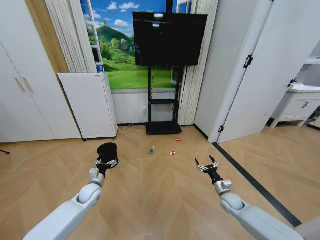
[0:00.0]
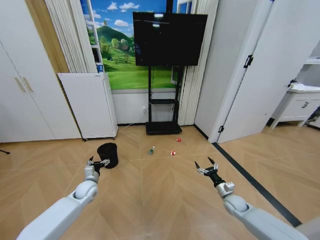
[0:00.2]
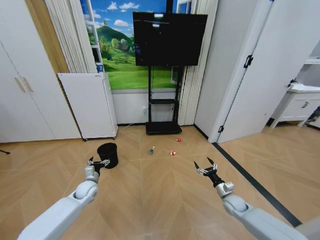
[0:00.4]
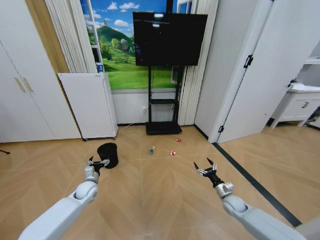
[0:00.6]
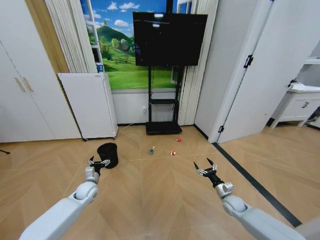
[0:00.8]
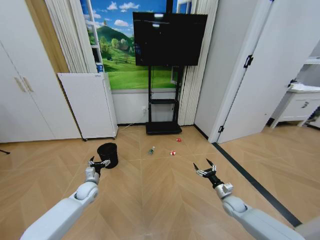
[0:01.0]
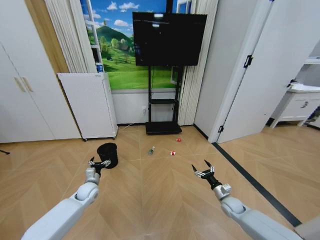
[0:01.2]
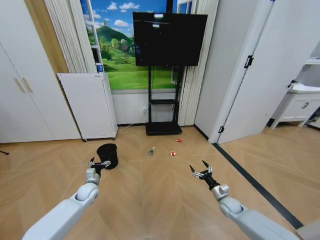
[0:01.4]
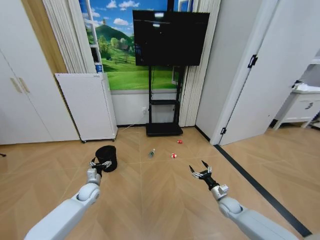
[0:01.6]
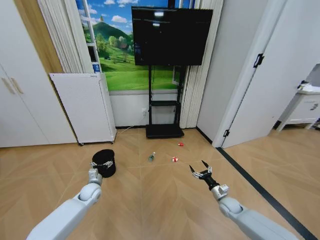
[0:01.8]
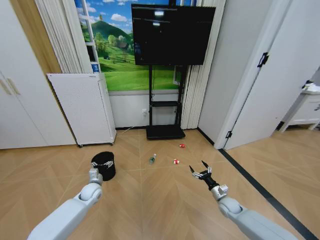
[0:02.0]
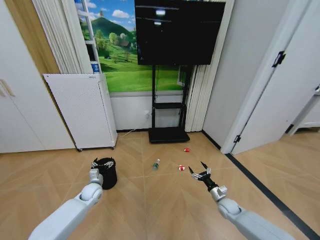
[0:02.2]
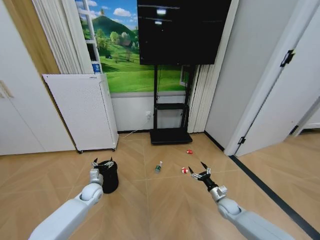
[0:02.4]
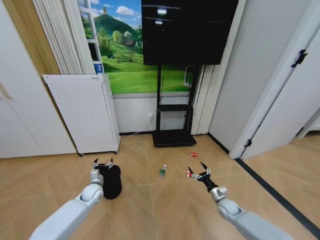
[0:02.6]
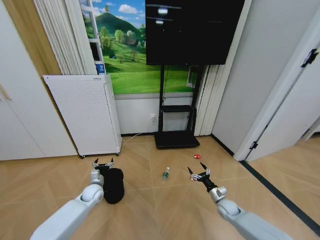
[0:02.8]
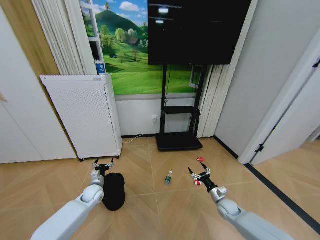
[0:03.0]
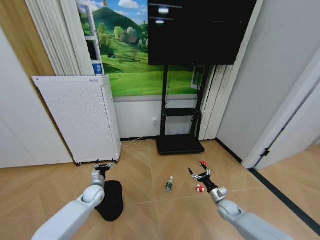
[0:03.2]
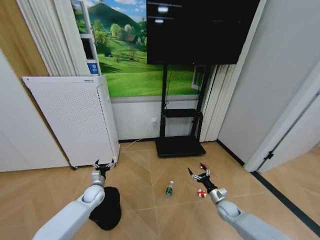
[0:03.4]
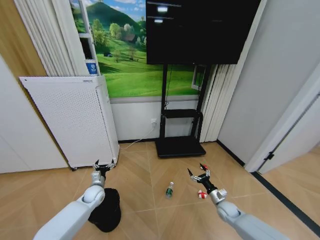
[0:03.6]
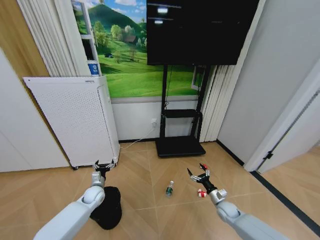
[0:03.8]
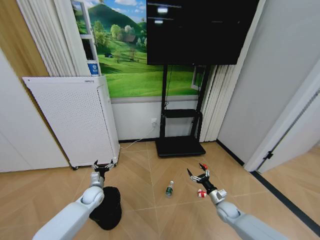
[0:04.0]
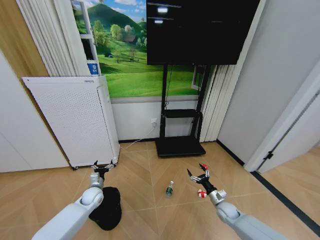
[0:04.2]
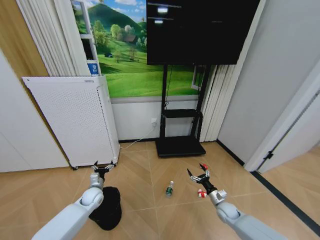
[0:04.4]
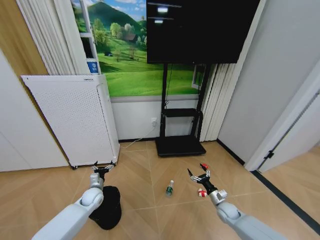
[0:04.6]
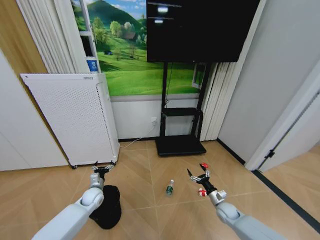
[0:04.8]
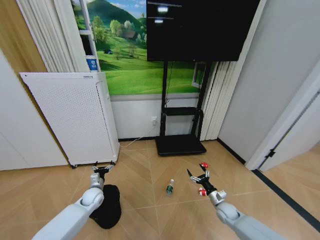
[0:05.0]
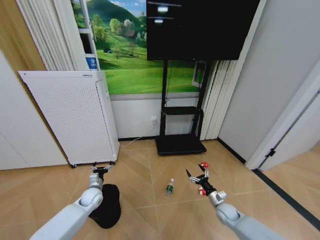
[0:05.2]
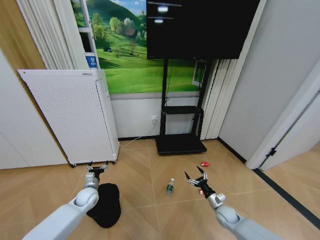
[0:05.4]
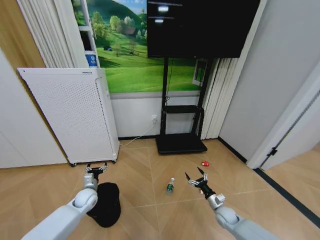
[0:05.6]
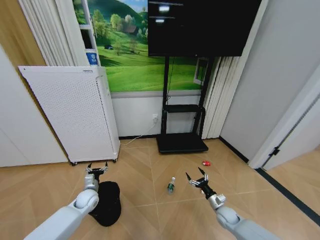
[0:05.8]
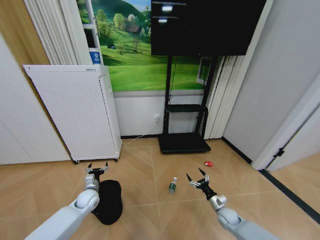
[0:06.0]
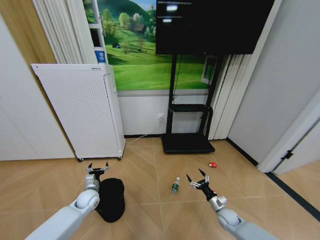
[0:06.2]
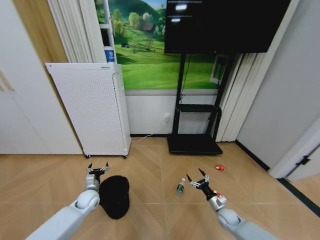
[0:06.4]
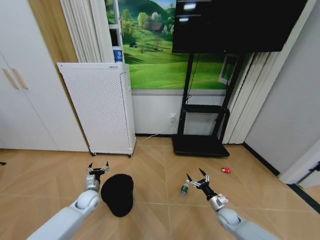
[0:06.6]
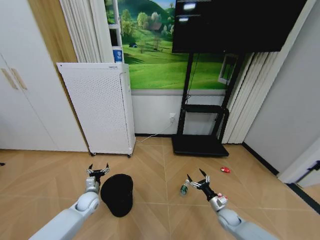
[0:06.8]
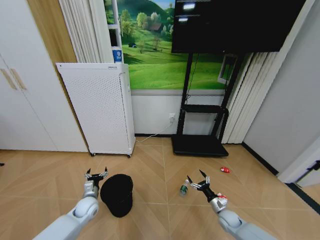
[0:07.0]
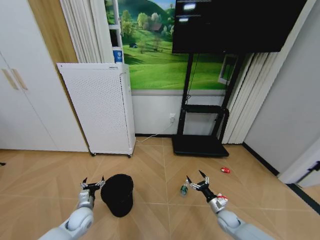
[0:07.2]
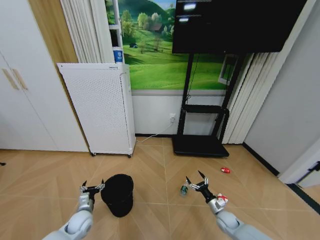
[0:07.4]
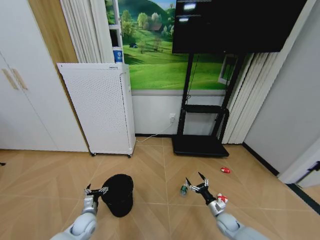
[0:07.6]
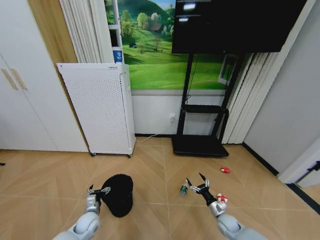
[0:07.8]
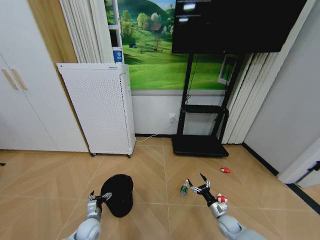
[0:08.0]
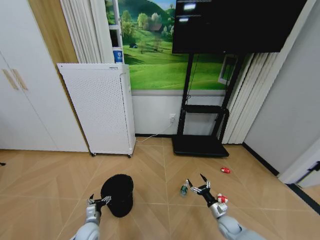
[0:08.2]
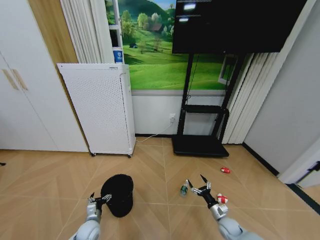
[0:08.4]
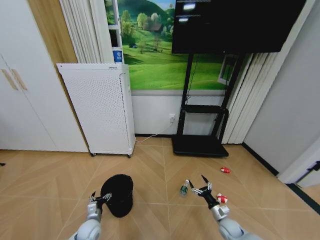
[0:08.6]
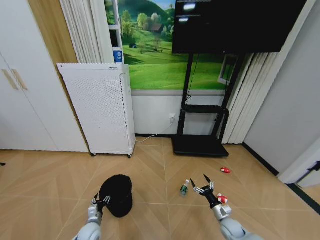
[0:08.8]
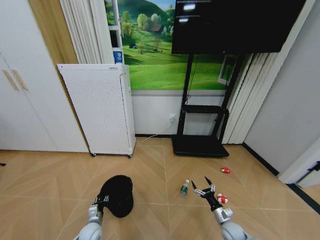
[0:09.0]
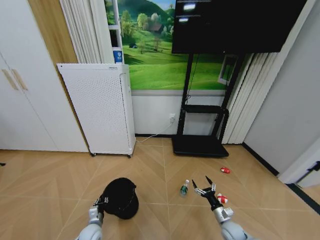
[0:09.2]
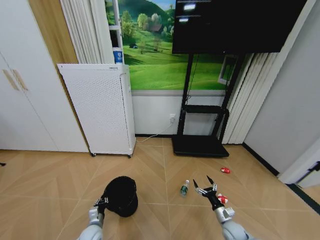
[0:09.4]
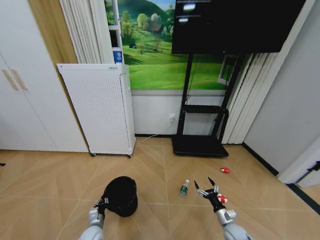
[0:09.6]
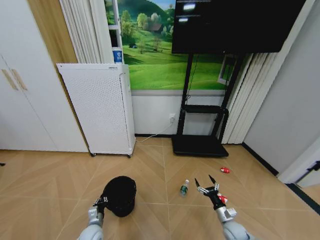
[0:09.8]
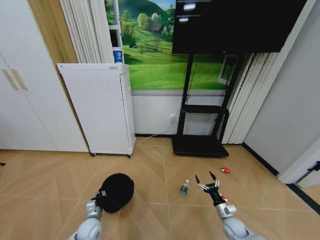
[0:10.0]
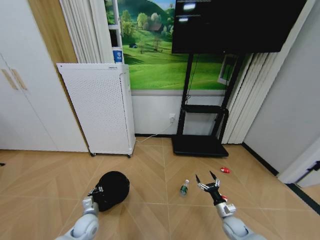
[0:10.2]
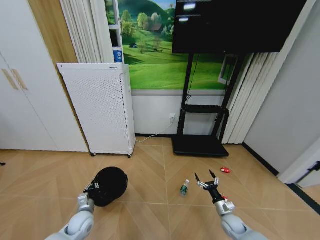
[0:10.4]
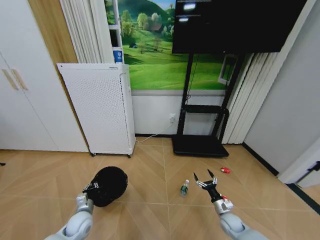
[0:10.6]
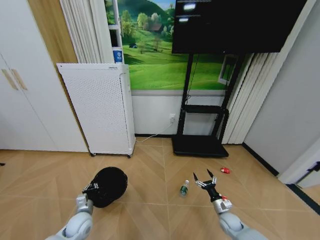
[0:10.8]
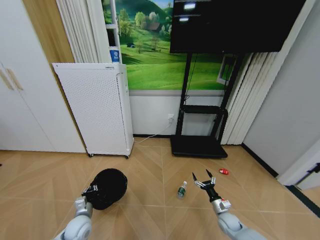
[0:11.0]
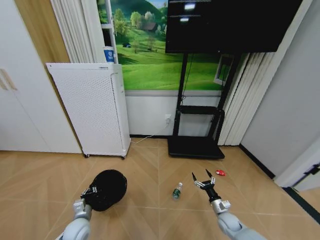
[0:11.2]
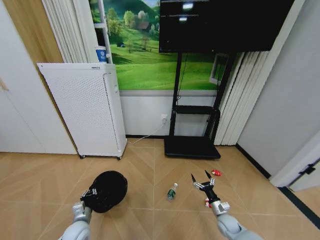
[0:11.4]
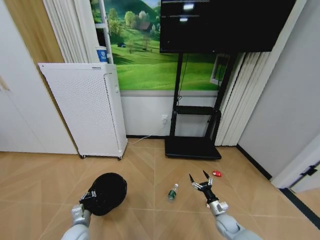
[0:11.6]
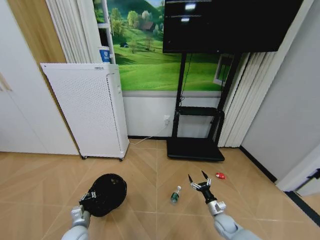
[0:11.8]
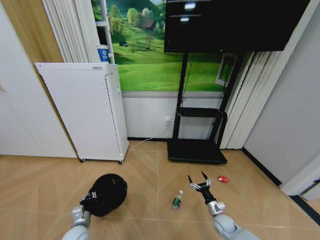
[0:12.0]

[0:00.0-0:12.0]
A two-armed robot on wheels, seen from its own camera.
Task of the whole recording: Pick up the trash bin and place the garbage on the floor into it.
0:06.0 to 0:07.6: The left gripper heads backward and downward, covering some 10 cm.
0:07.6 to 0:09.0: The left gripper changes place by roughly 5 cm, and closes.
0:09.0 to 0:10.4: The left gripper is displaced upward by some 10 cm, and closes.
0:10.4 to 0:12.0: The left gripper goes approximately 5 cm backward.

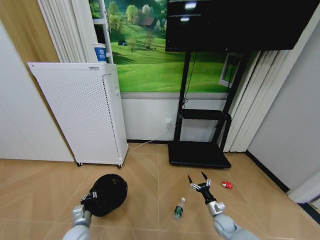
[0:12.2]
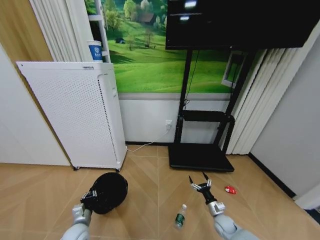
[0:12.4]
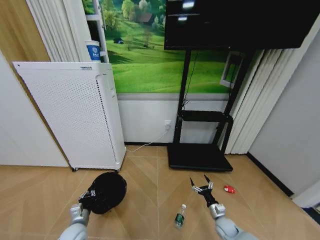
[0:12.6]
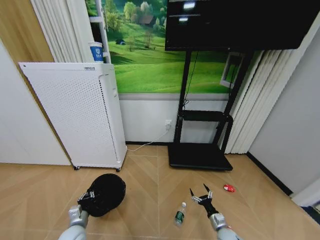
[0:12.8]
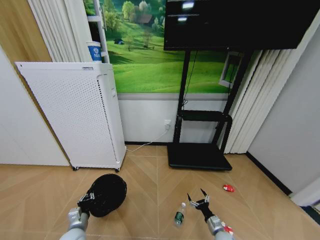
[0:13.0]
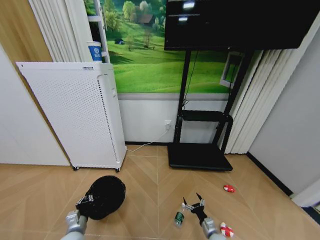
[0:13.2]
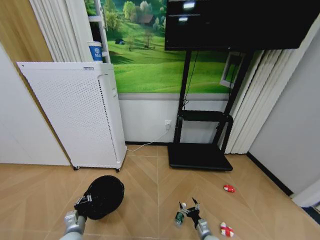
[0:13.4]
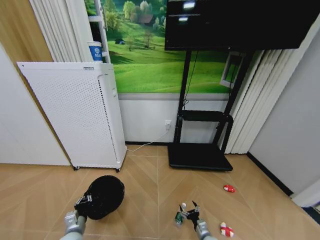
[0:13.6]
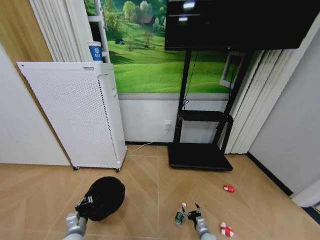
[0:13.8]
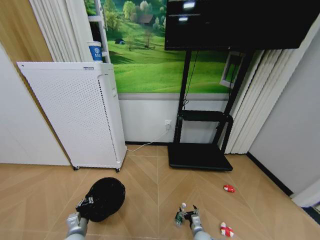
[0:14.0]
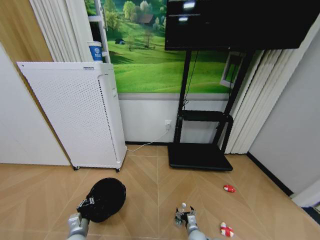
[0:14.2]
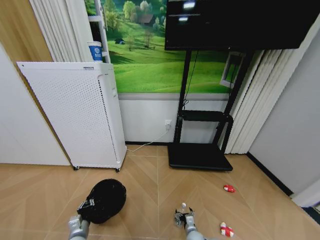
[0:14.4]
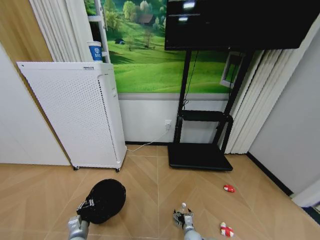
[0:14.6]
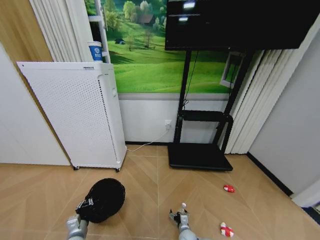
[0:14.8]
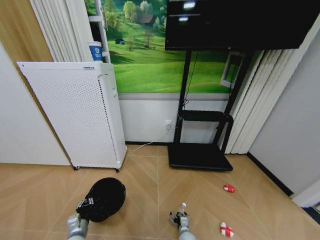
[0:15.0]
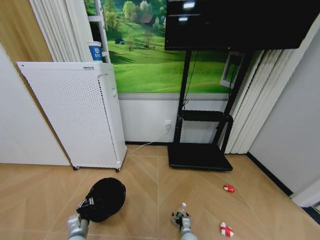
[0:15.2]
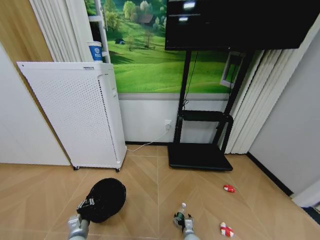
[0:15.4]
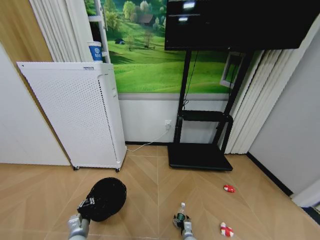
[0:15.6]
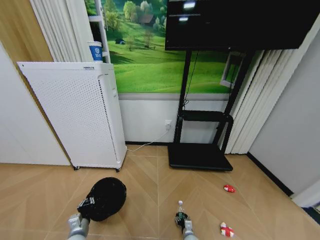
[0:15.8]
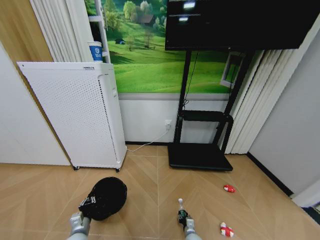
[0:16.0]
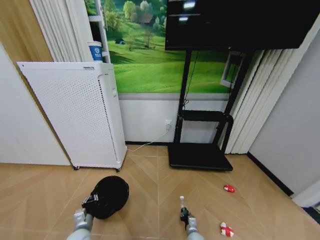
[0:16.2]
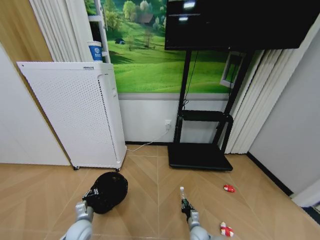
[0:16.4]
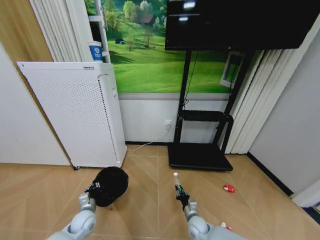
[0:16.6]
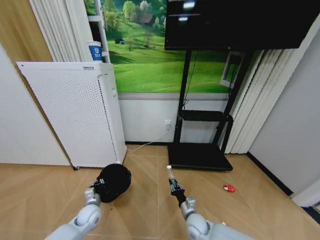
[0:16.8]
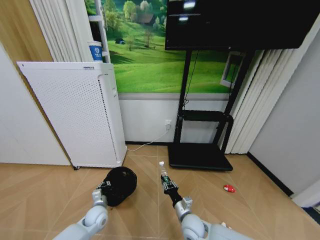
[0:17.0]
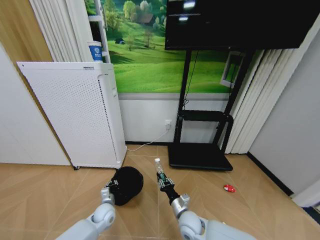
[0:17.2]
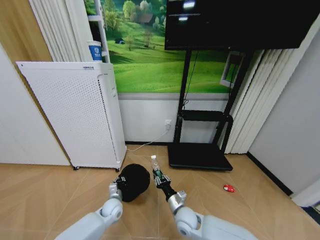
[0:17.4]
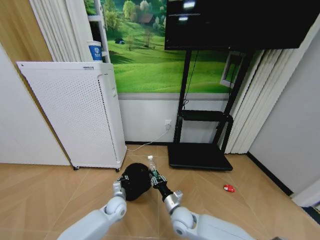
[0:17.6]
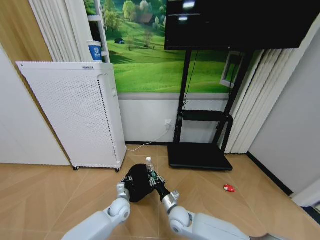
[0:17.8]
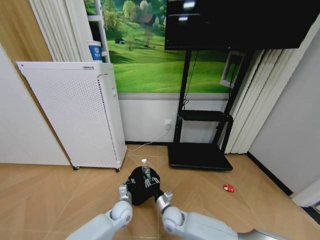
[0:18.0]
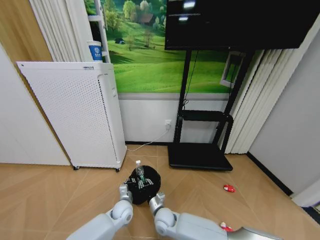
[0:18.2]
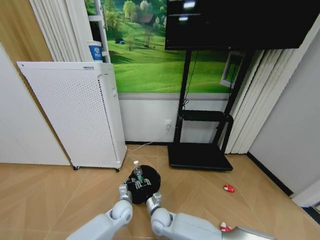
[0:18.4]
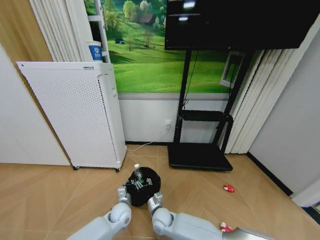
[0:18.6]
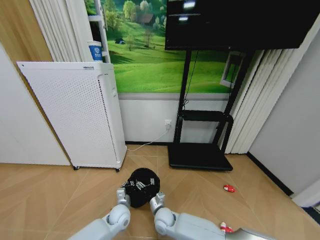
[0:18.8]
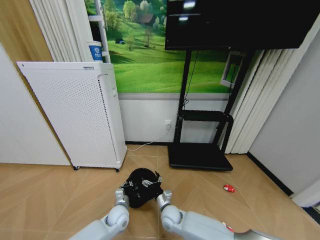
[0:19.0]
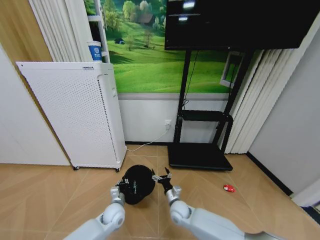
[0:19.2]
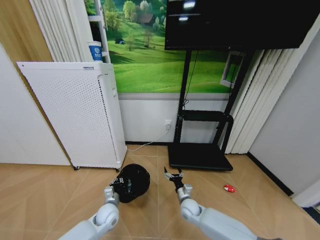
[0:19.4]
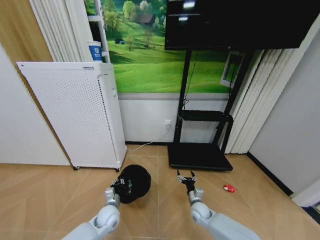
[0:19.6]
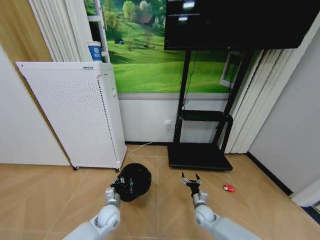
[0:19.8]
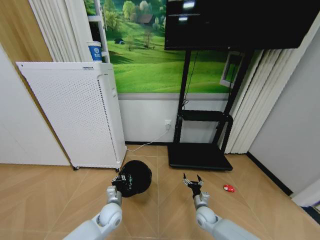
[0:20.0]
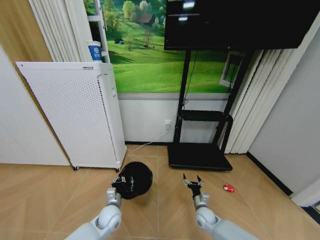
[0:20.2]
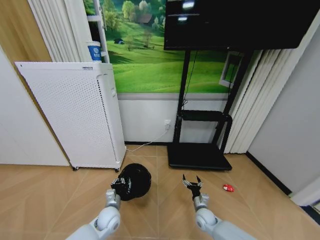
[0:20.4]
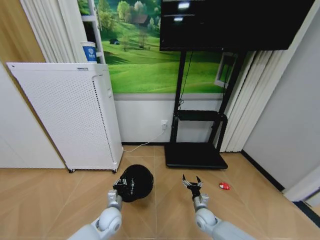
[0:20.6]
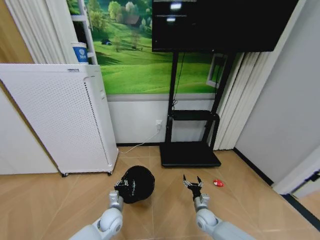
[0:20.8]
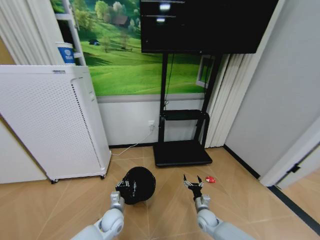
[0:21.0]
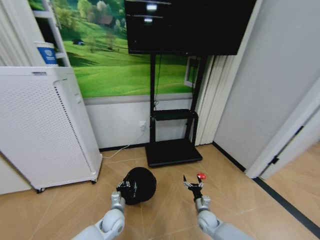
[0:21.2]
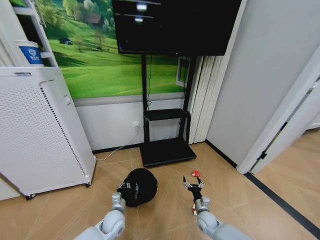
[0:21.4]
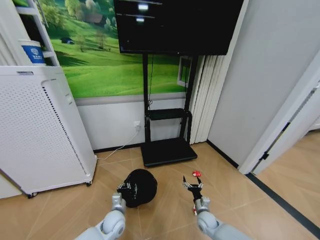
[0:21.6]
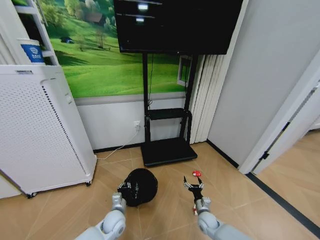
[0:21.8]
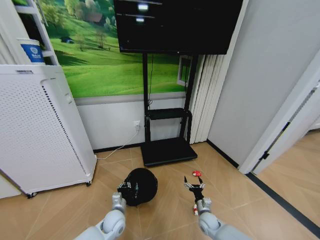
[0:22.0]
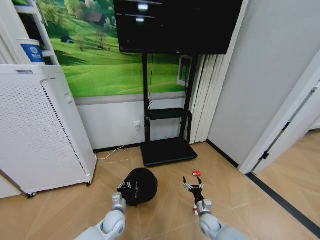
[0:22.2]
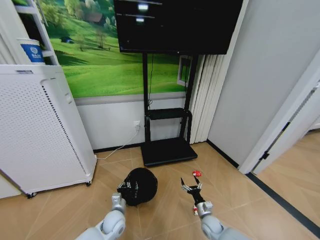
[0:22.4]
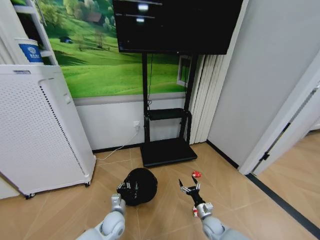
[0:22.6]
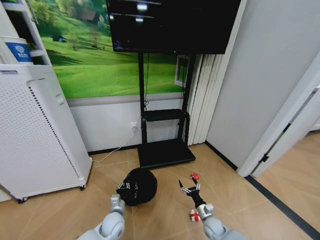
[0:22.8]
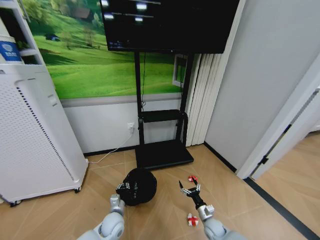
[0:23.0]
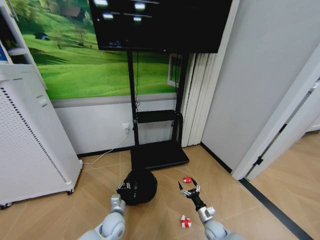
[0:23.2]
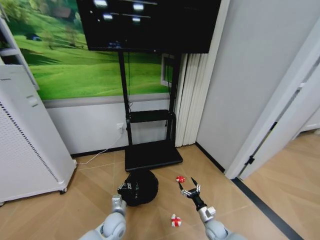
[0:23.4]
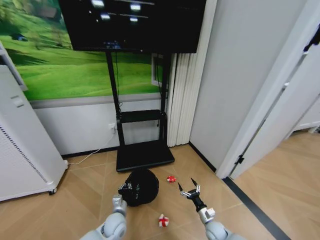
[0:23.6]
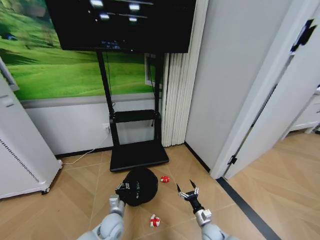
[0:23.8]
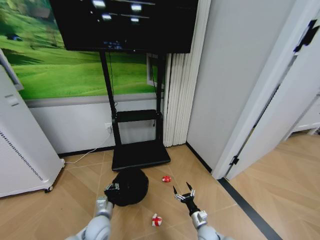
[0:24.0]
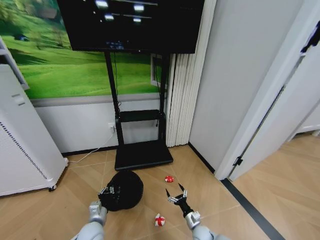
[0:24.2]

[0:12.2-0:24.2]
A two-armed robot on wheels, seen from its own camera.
Task of the whole recording: Pick up the trash bin and place the garbage on the floor into it.
0:12.2 to 0:13.8: The right gripper heads downward, to the left and backward, covering roughly 15 cm.
0:13.8 to 0:15.2: The right gripper heads to the left, covering some 10 cm.
0:15.2 to 0:16.6: The right gripper shifts approximately 10 cm upward, and closes up. The left gripper is displaced forward by approximately 10 cm.
0:16.6 to 0:18.2: The right gripper shifts approximately 20 cm to the left and upward; the left gripper shifts roughly 15 cm to the right.
0:18.2 to 0:19.8: The right gripper moves to the right, approximately 20 cm, and opens its fingers. Meanwhile the left gripper heads to the left, covering some 5 cm.
0:22.6 to 0:24.2: The grippers both shift to the left by about 5 cm.
